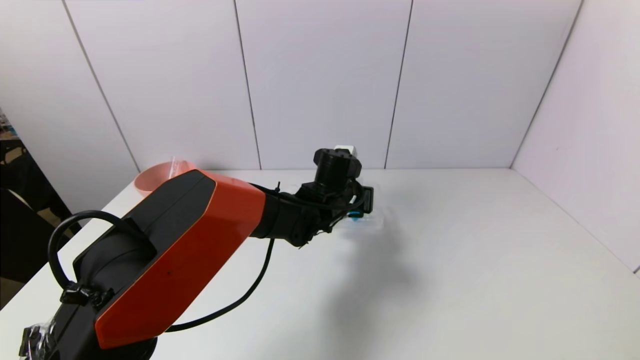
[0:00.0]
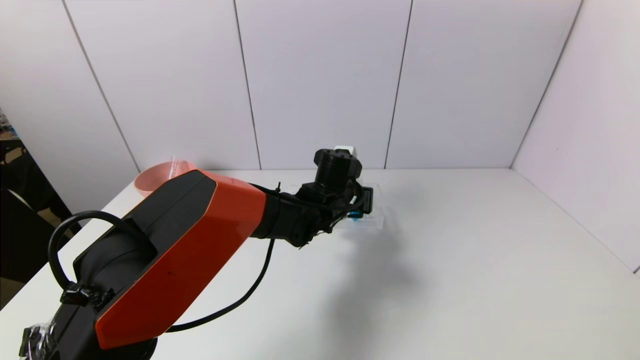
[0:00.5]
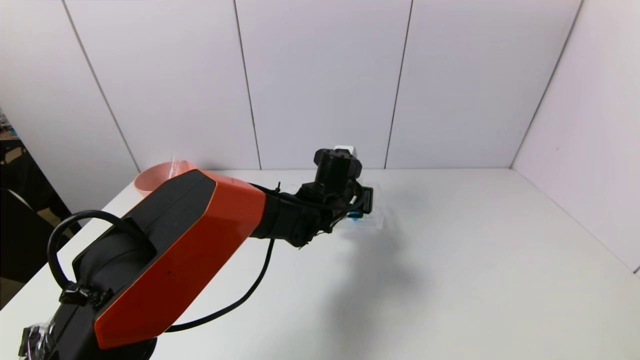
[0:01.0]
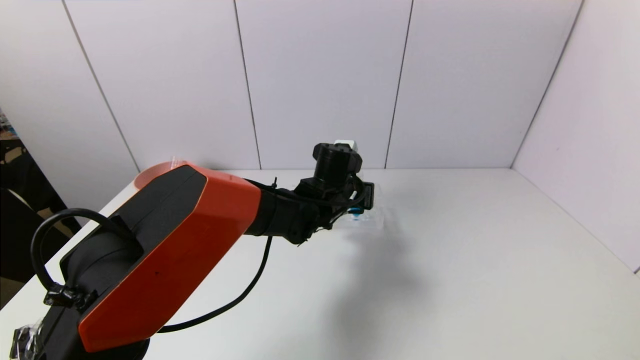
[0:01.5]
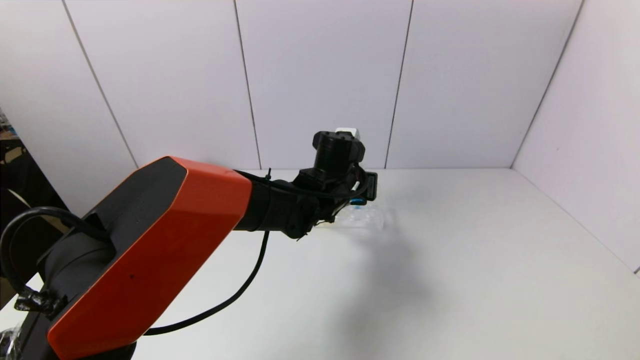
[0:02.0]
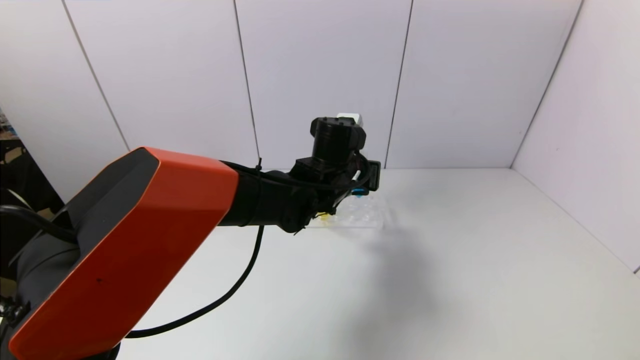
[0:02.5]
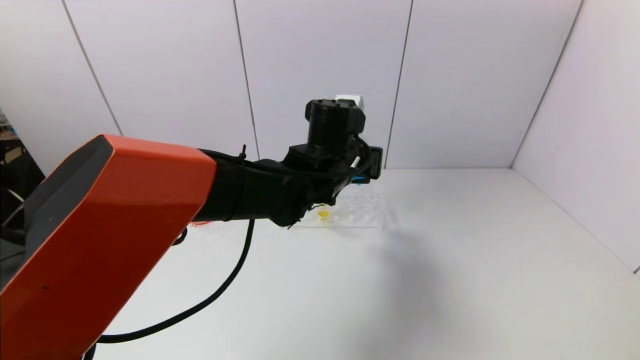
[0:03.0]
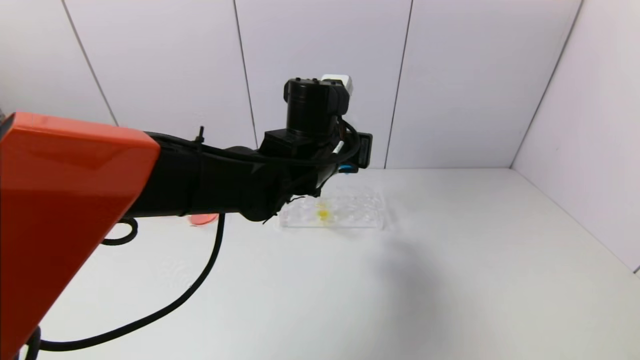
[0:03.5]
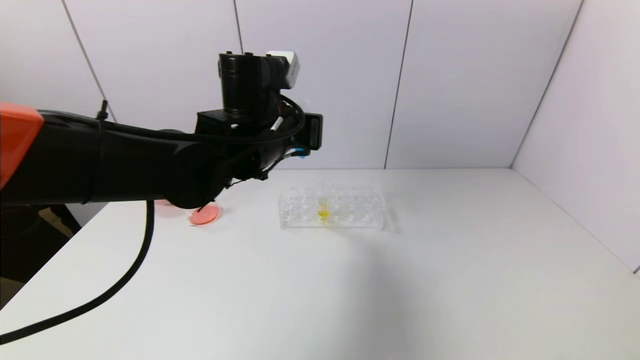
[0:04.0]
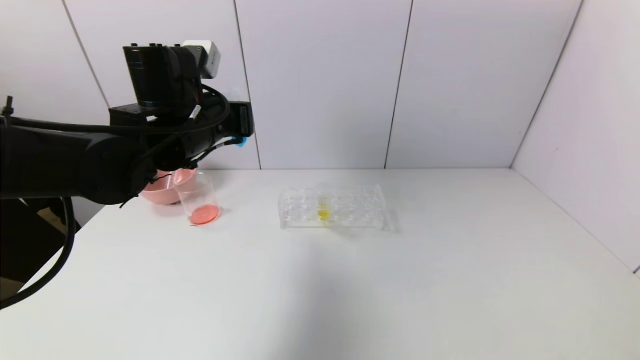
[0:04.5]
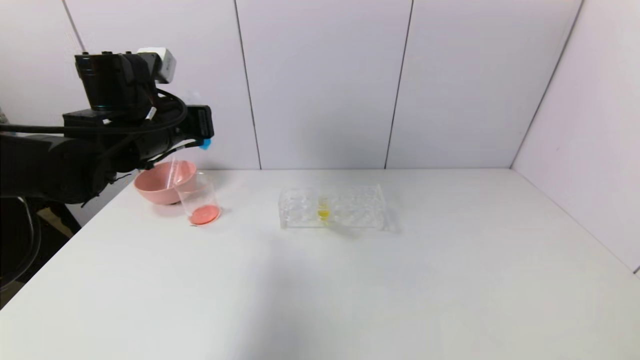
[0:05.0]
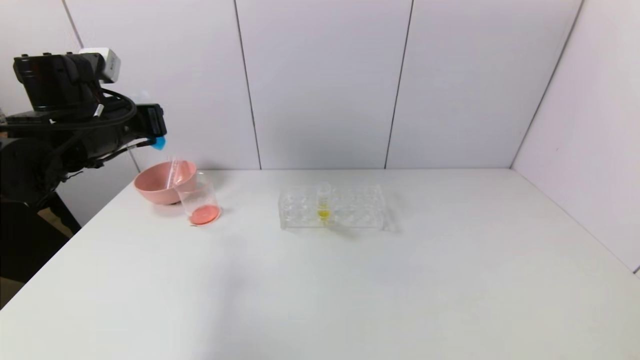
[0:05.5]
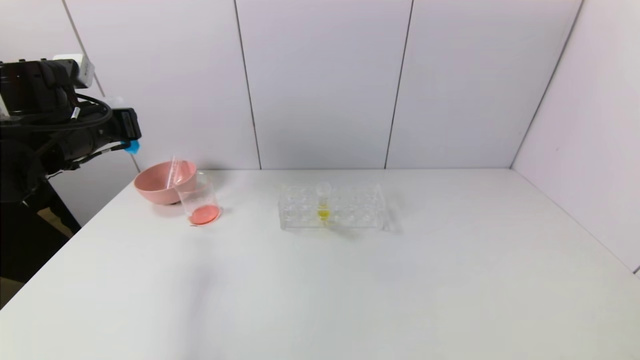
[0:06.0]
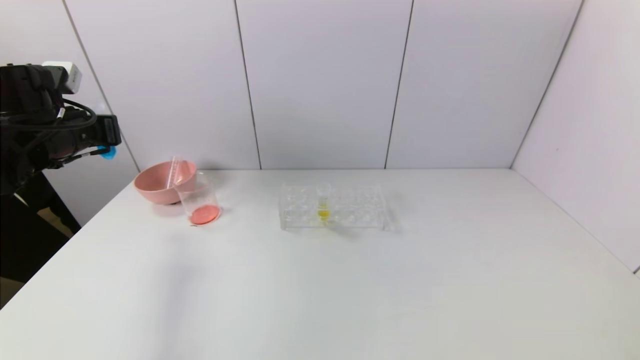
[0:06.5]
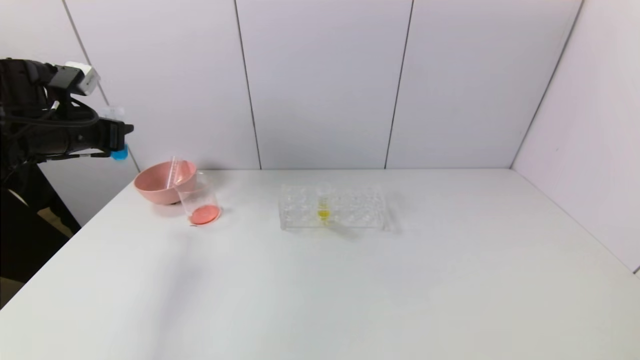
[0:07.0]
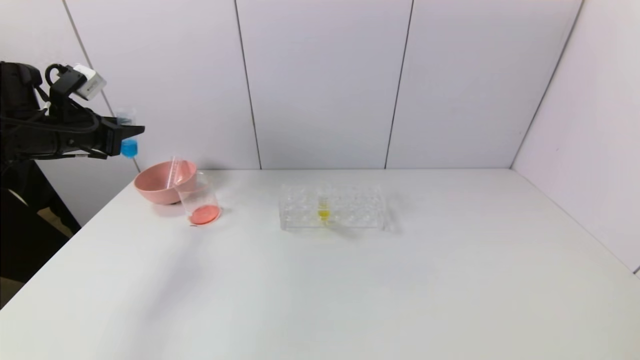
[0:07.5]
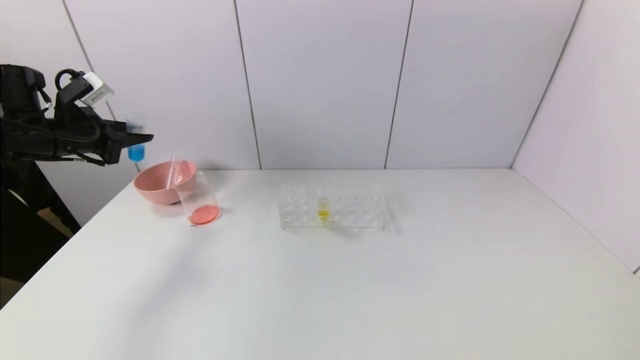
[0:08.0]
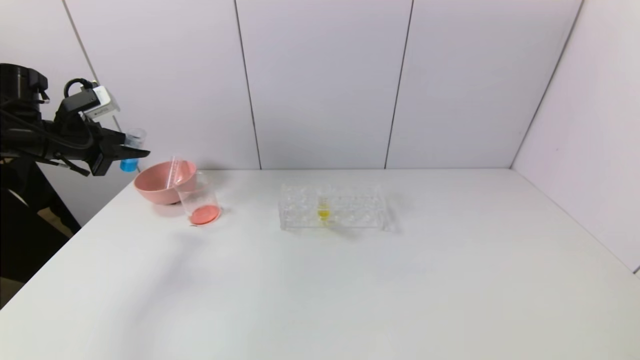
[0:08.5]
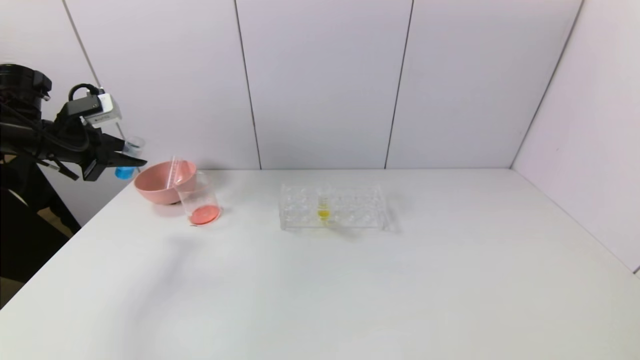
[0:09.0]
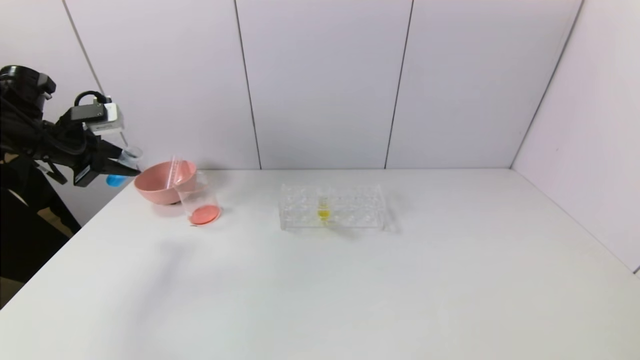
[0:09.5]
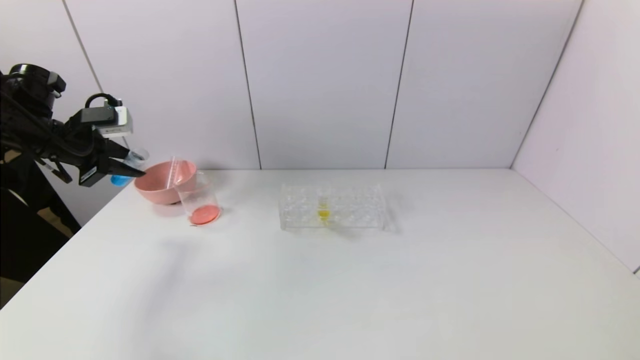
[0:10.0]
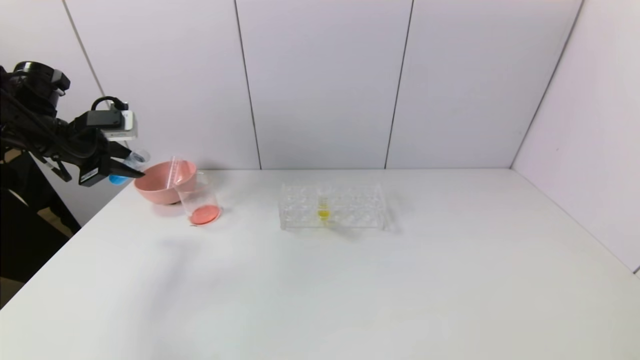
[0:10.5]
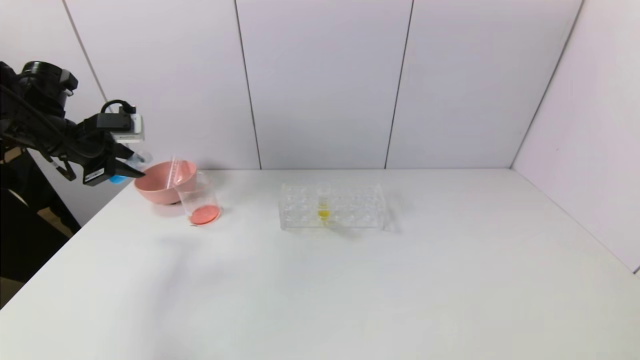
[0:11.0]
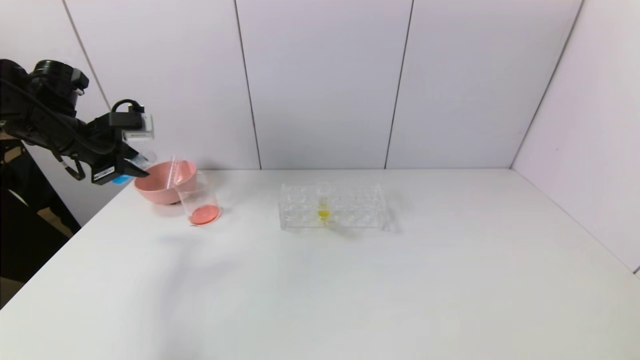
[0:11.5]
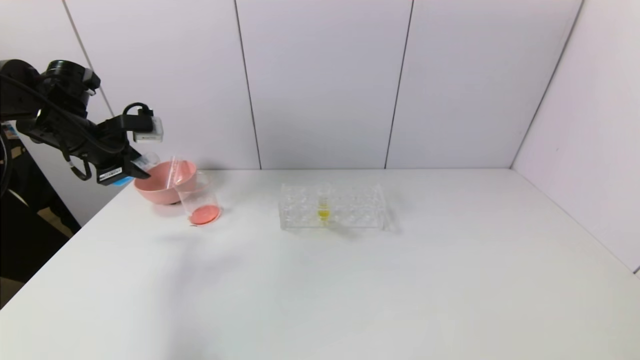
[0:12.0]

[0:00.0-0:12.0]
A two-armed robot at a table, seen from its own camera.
Task of the whole recording: pick up the test tube with red pigment and the test tube with blue pigment by grippers and pour them into the container.
0:00.0 to 0:02.0: The grippers move only a little.
0:02.0 to 0:04.0: The left gripper heads to the left and upward, covering about 15 cm.
0:04.0 to 0:06.0: The left gripper moves to the left, about 25 cm.
0:06.0 to 0:08.0: The left gripper goes approximately 5 cm to the left.
0:10.0 to 0:12.0: There are only small adjustments of the grippers.

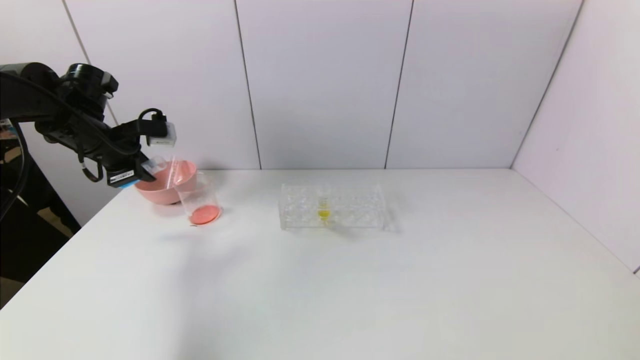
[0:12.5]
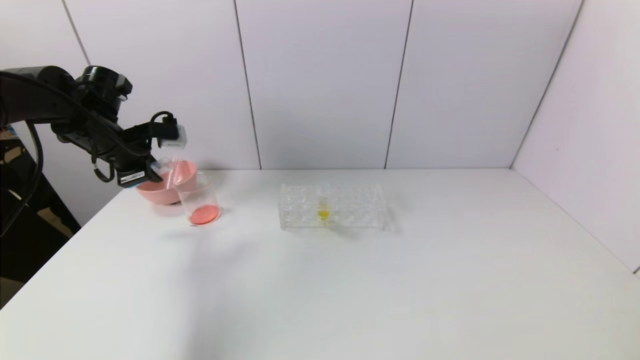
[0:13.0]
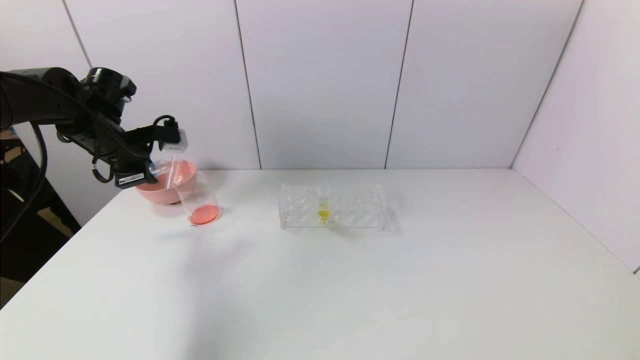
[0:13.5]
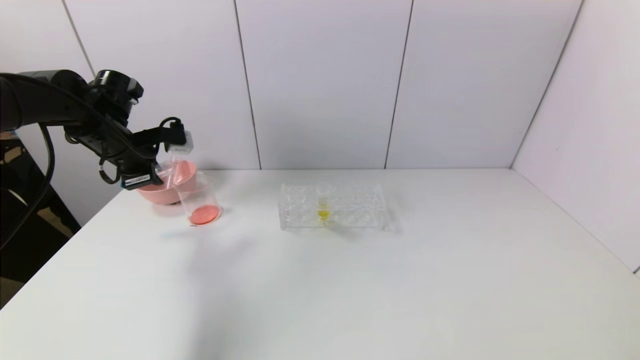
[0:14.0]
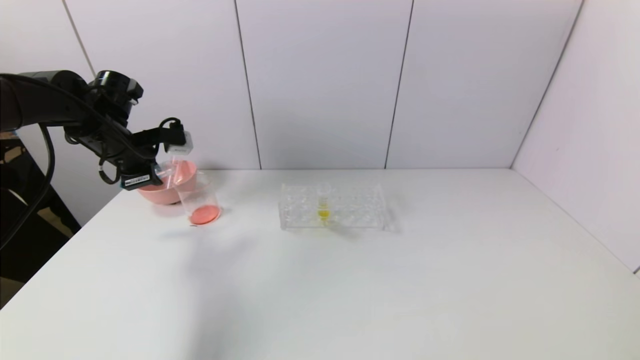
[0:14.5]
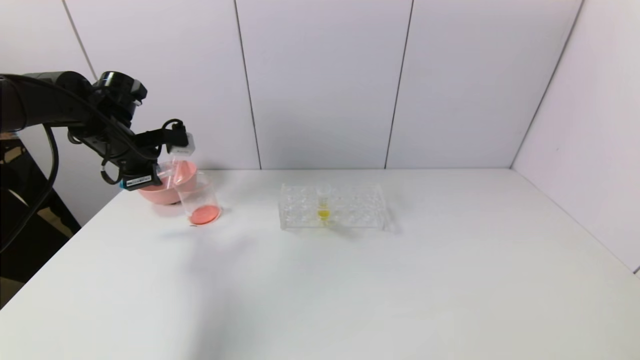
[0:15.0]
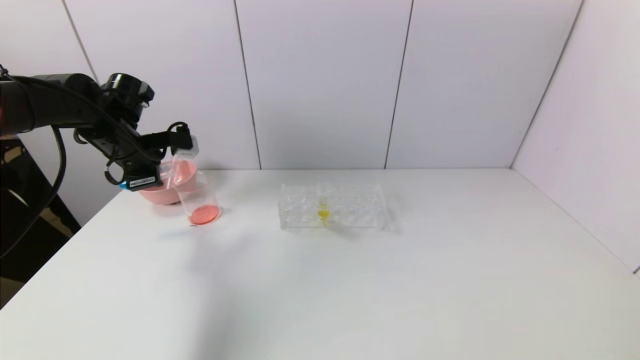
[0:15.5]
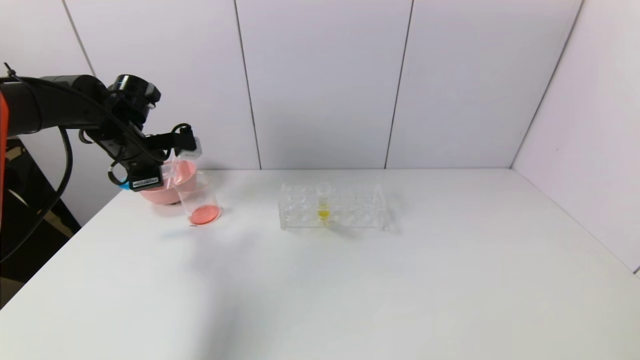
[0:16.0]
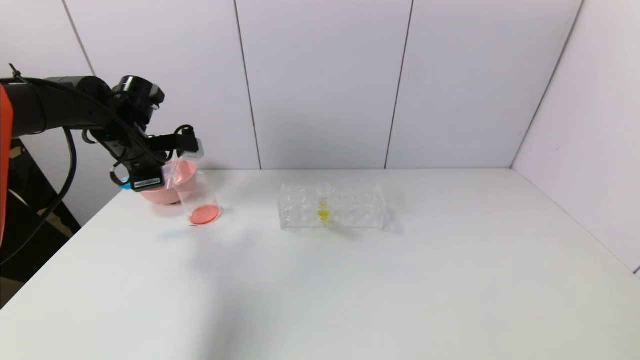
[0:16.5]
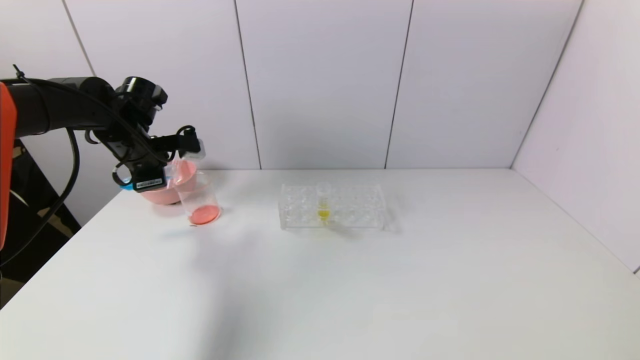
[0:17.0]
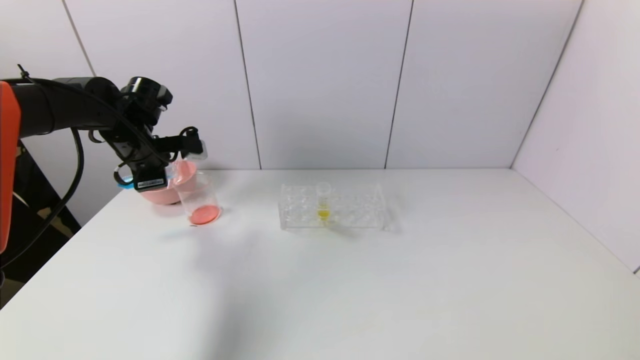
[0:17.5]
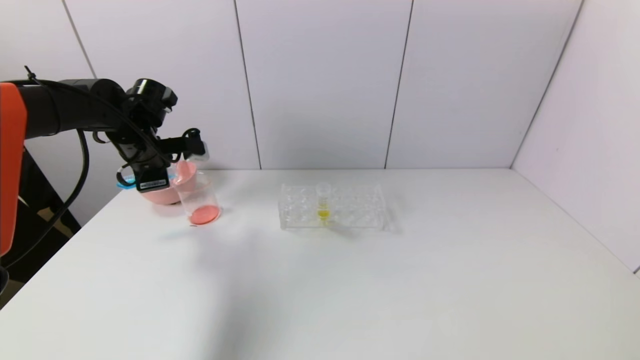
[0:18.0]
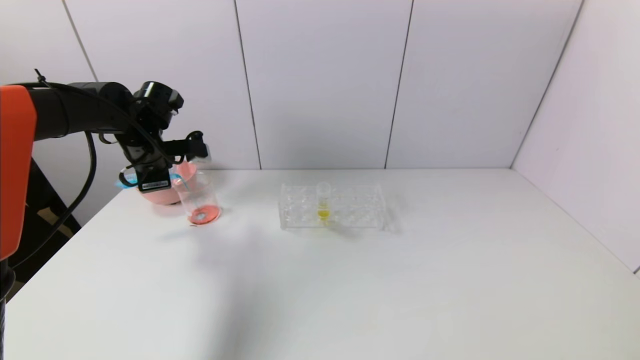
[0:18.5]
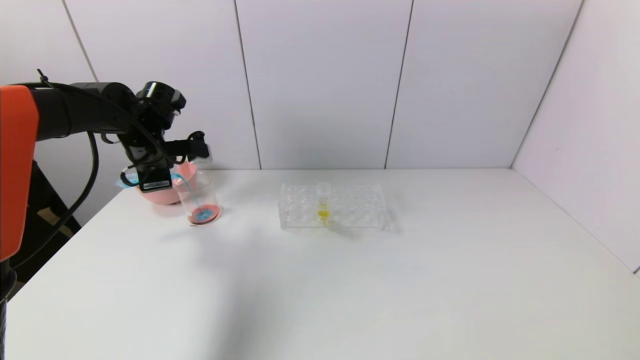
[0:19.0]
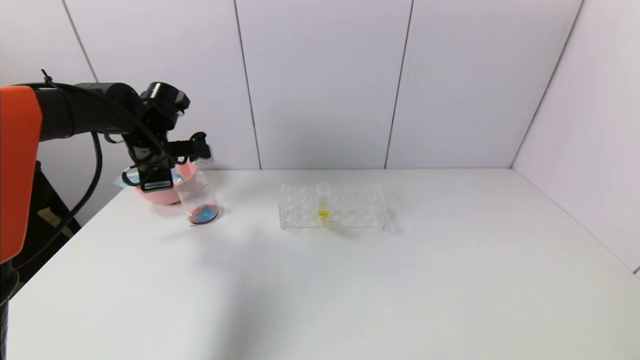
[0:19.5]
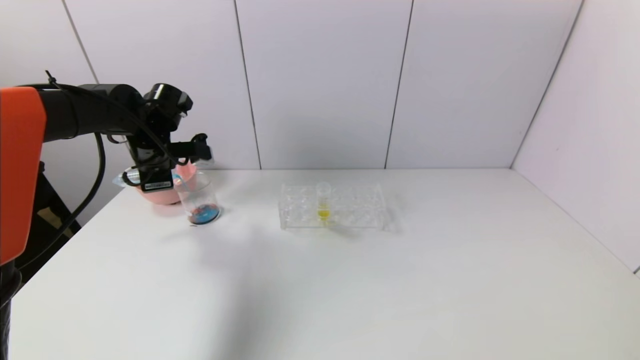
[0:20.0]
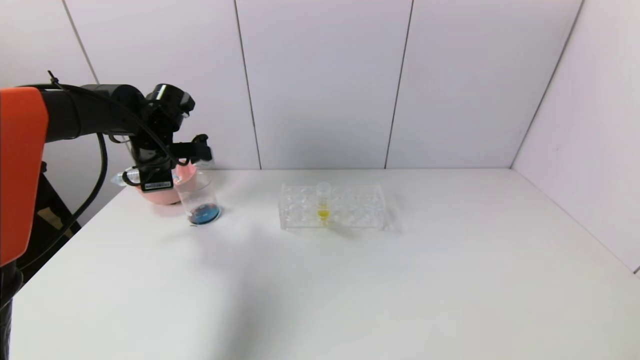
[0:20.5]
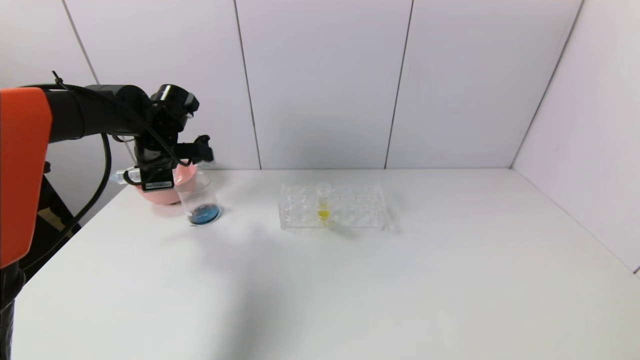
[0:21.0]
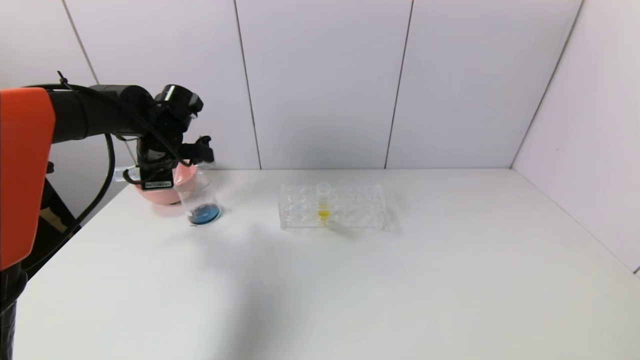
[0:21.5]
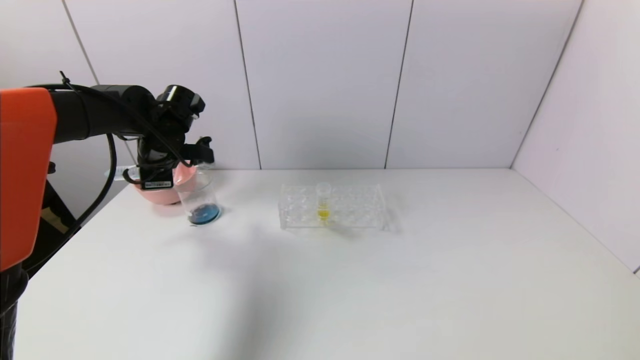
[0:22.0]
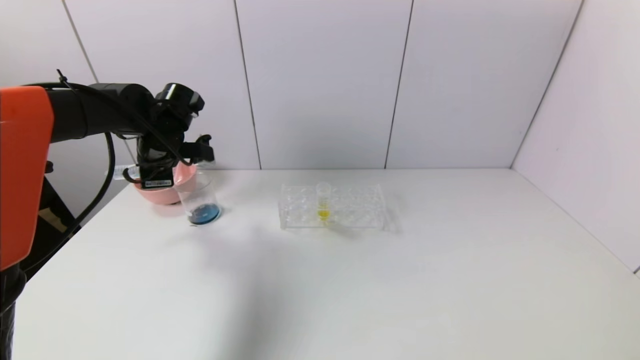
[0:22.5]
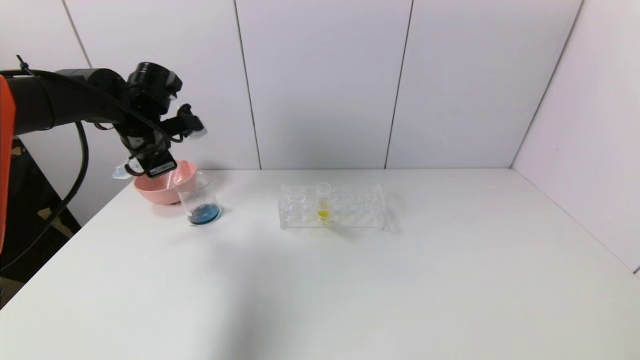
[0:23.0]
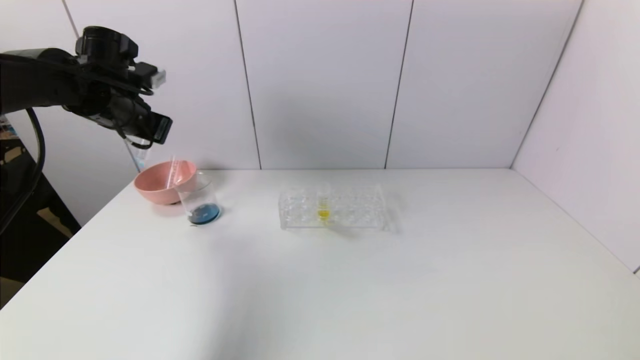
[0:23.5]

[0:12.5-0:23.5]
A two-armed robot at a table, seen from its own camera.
Task of the whole recording: pick up the test tube with red pigment and the test tube with blue pigment by grippers and pour them into the container.
0:12.5 to 0:16.0: The grippers move only a little.
0:16.0 to 0:20.0: There are only small adjustments of the grippers.
0:20.0 to 0:21.5: There are only small adjustments of the grippers.
0:21.5 to 0:23.5: The left gripper heads upward, covering about 5 cm.
